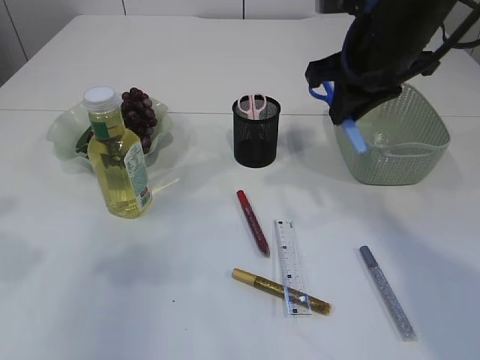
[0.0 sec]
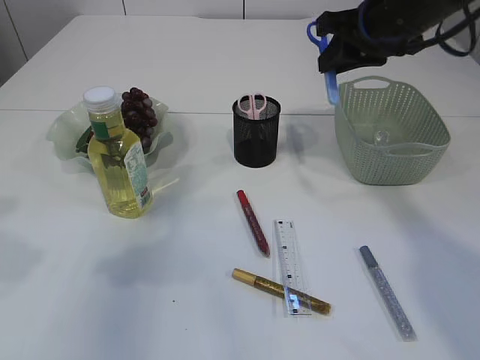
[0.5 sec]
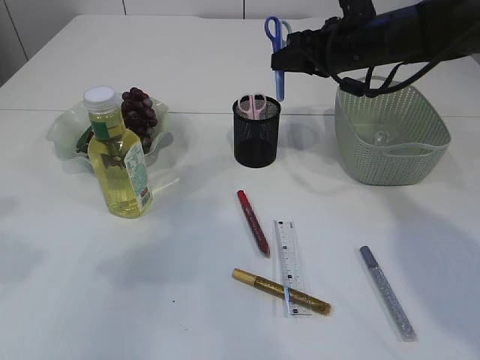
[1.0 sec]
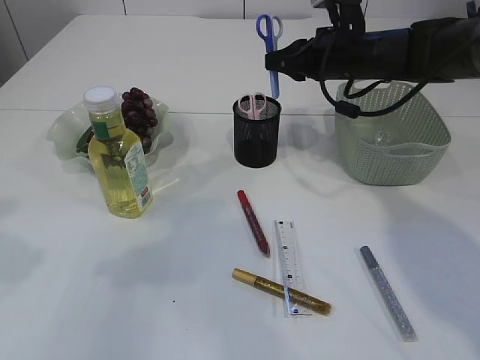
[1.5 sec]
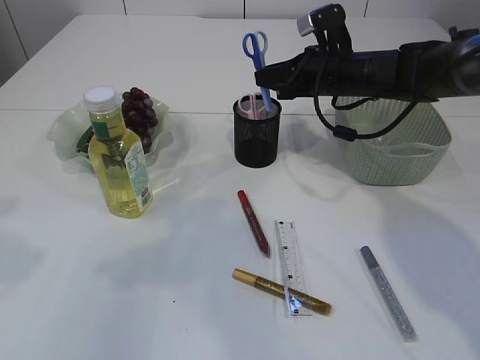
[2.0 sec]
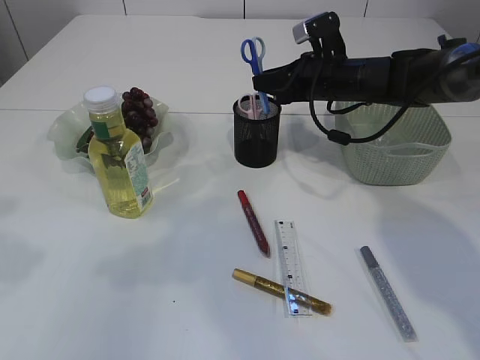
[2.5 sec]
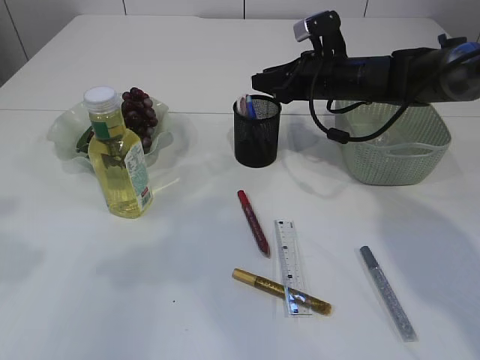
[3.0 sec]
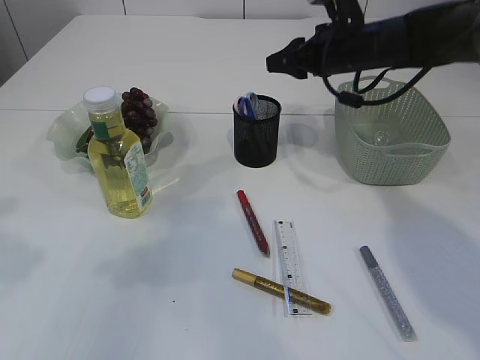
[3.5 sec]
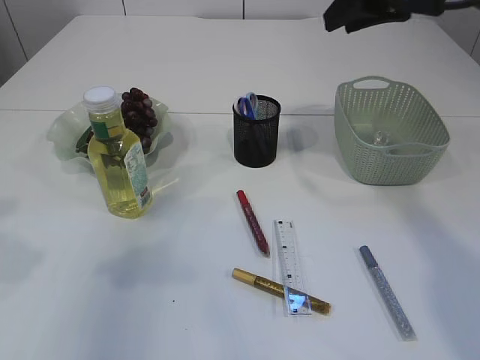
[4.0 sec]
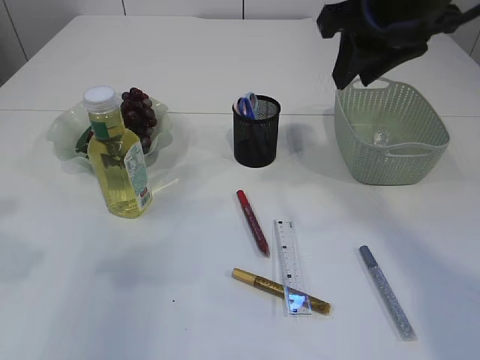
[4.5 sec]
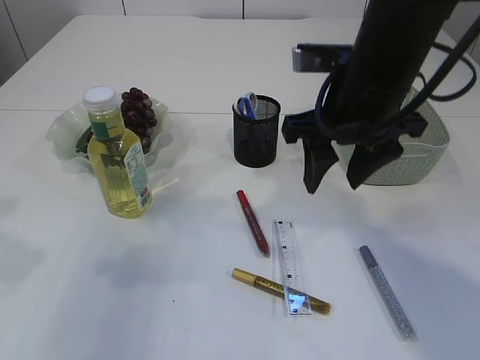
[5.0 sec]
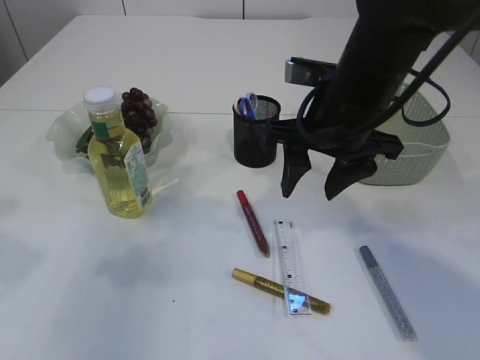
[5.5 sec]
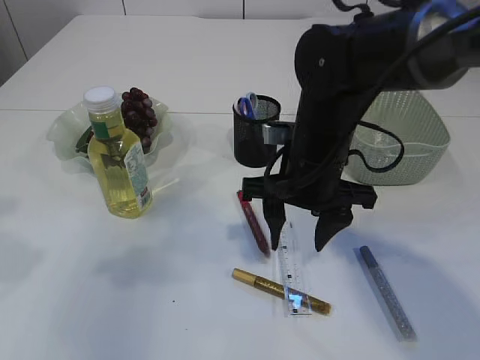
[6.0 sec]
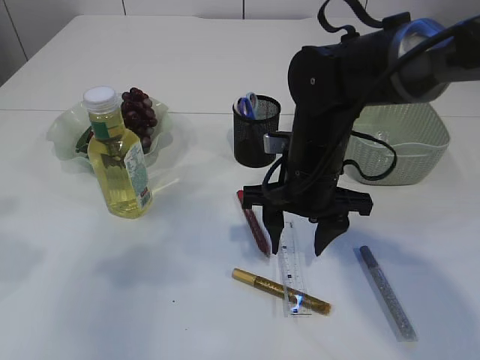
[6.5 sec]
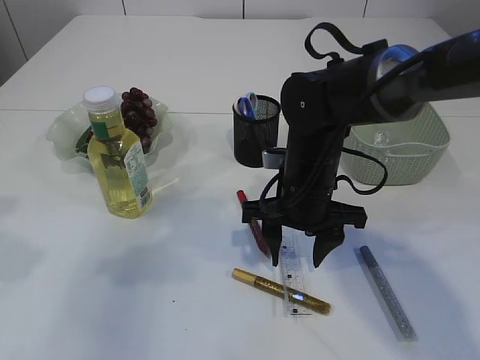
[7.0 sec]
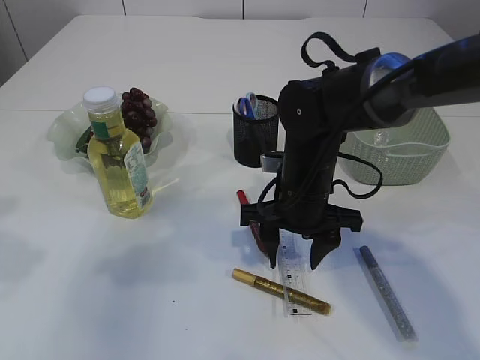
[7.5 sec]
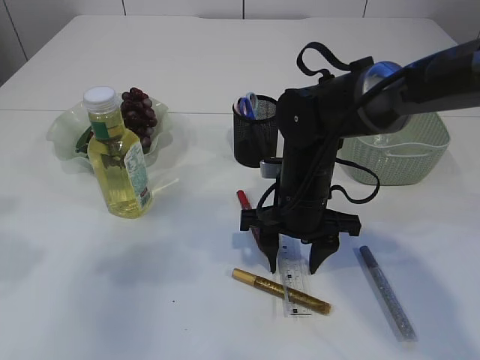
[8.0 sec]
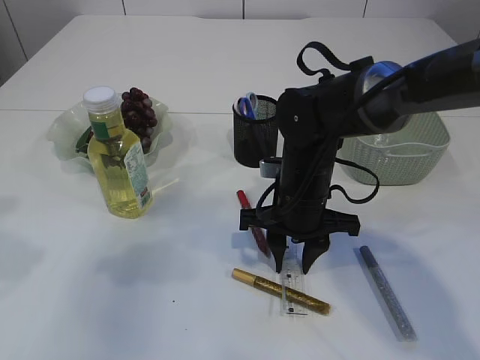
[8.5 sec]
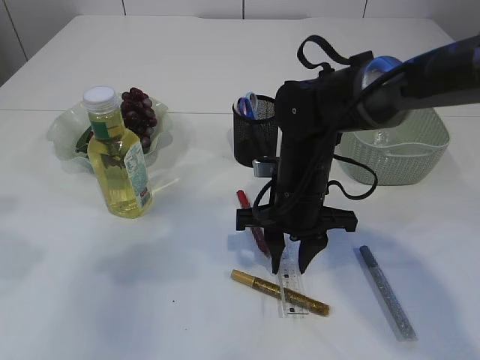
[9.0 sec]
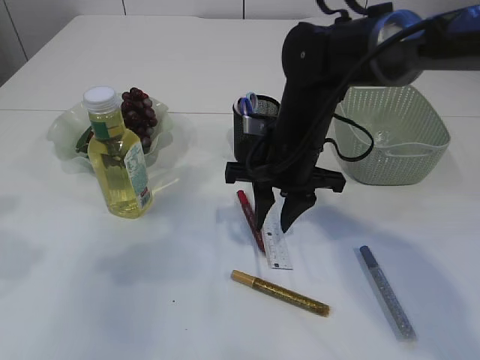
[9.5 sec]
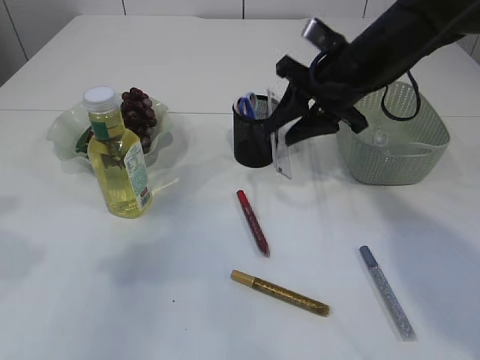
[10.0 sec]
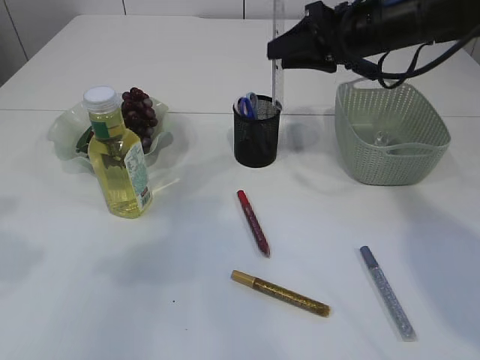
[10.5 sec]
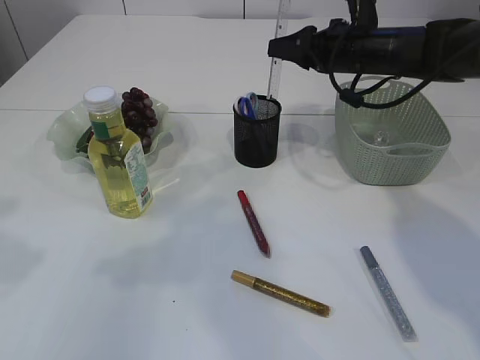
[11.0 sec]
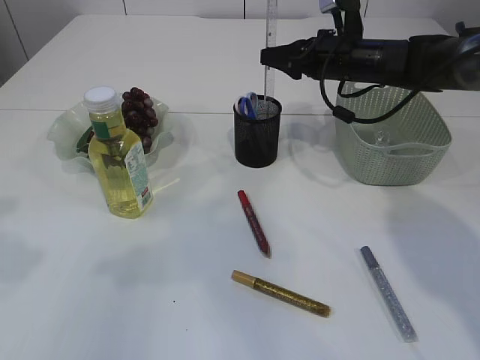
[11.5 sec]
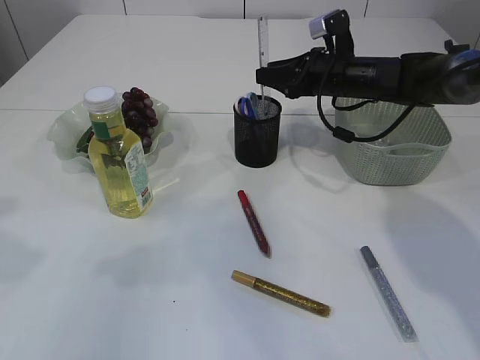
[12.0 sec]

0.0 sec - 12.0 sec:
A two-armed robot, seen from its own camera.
Step, 0.0 sec - 3.5 sec: Place the blue knife into the pen holder.
Step, 4.0 sec - 9.5 sec: pick up the ruler.
0.0 sec - 2.0 sec: The right gripper travels forward and downward by approximately 15 cm.
2.0 sec - 4.0 sec: The right gripper heads upward and backward, covering some 20 cm.
4.0 sec - 6.0 sec: The right gripper travels downward and to the left by roughly 20 cm, and opens its fingers.
6.0 sec - 8.0 sec: The right gripper shifts roughly 5 cm downward.
8.0 sec - 10.0 sec: The right gripper shifts some 15 cm upward, to the right and forward, and closes up.
10.0 sec - 12.0 sec: The right gripper heads forward and downward, covering about 10 cm.

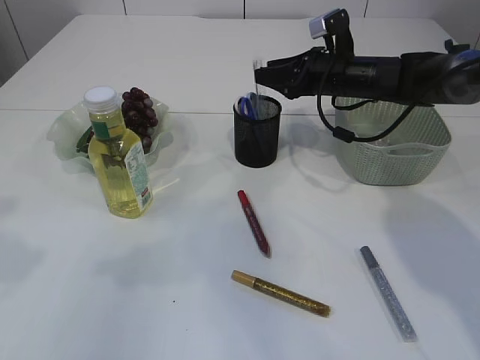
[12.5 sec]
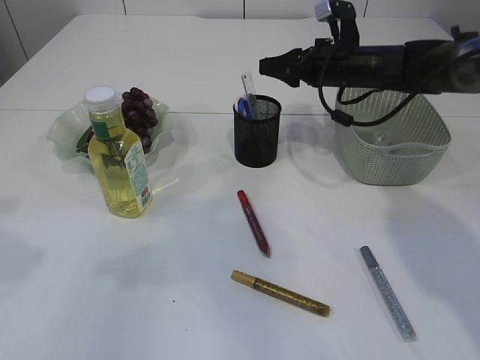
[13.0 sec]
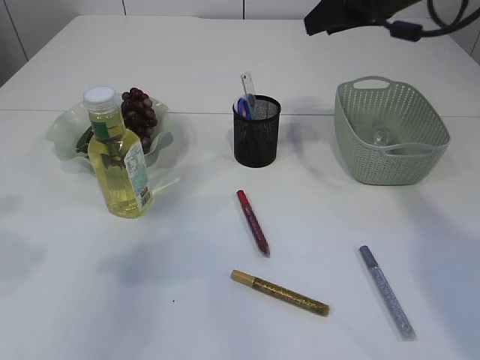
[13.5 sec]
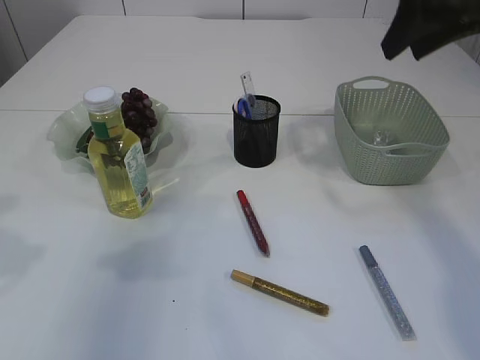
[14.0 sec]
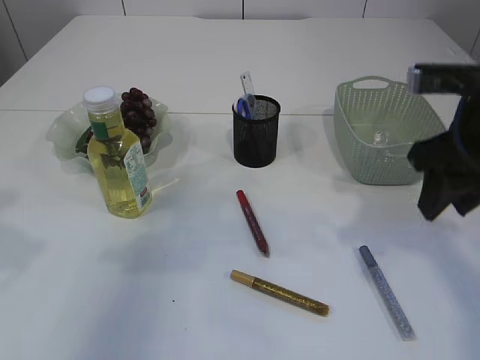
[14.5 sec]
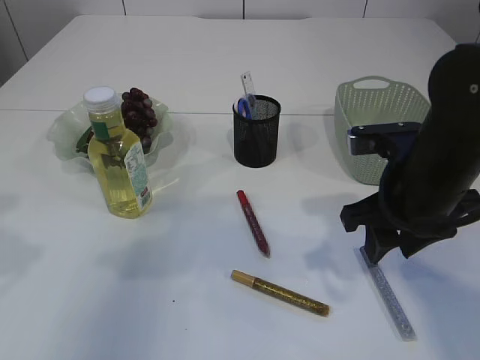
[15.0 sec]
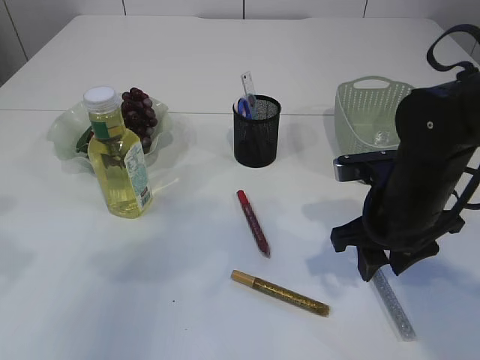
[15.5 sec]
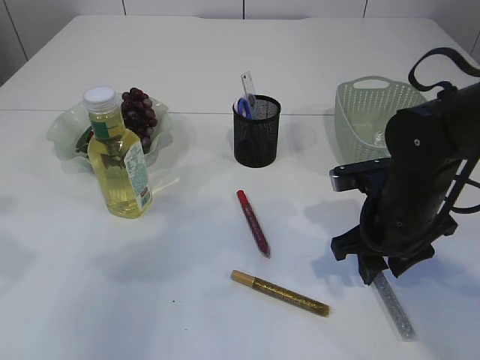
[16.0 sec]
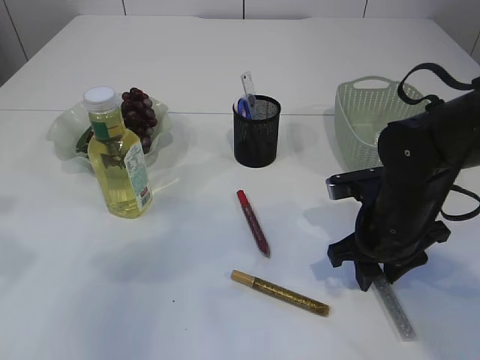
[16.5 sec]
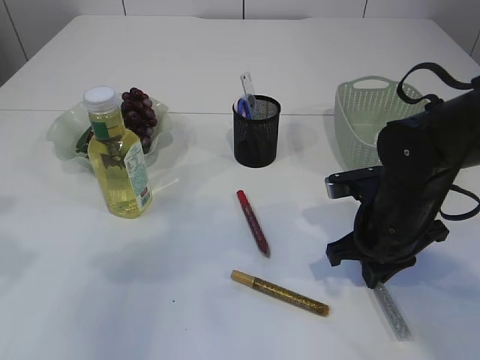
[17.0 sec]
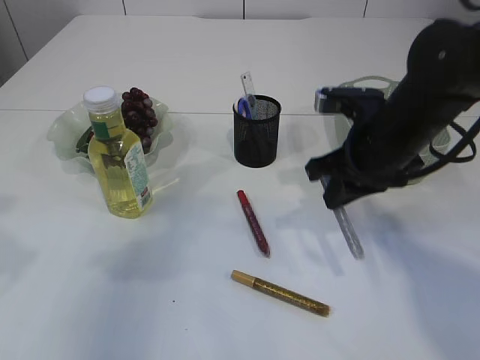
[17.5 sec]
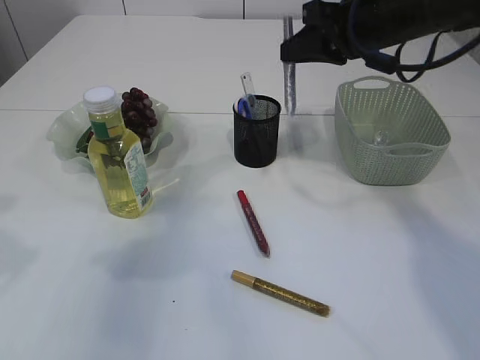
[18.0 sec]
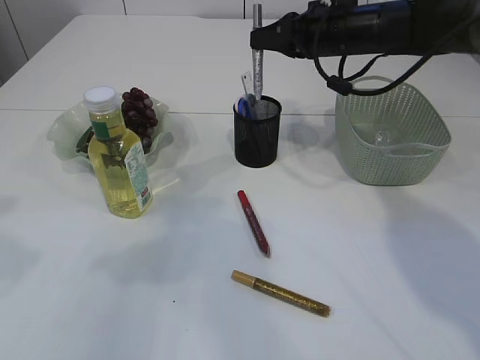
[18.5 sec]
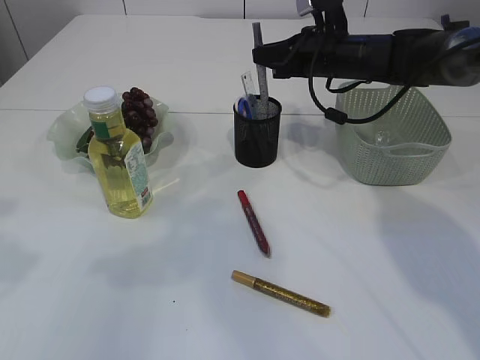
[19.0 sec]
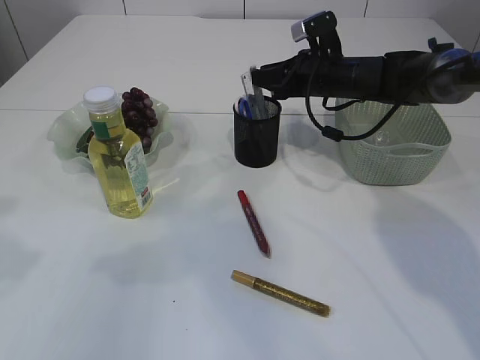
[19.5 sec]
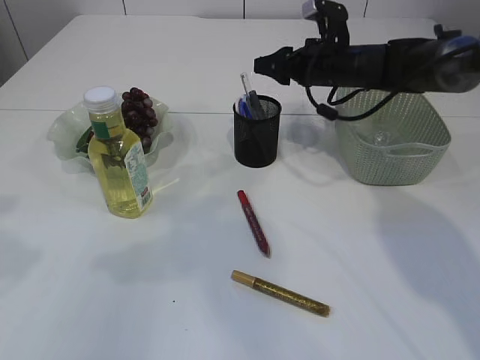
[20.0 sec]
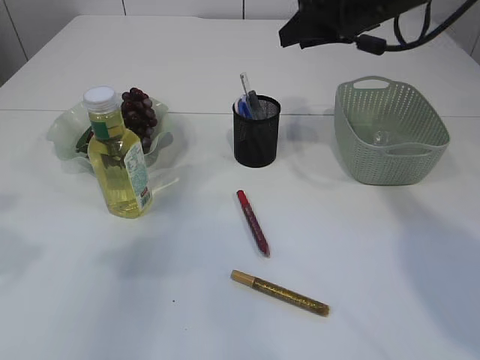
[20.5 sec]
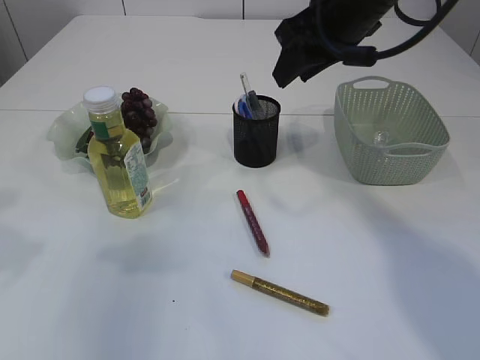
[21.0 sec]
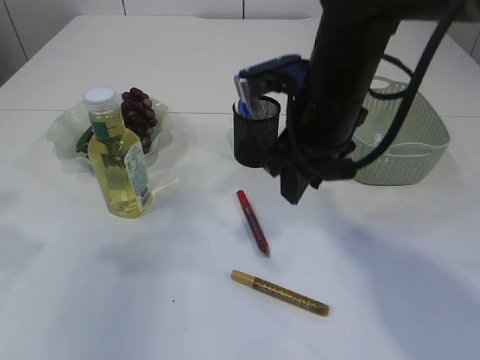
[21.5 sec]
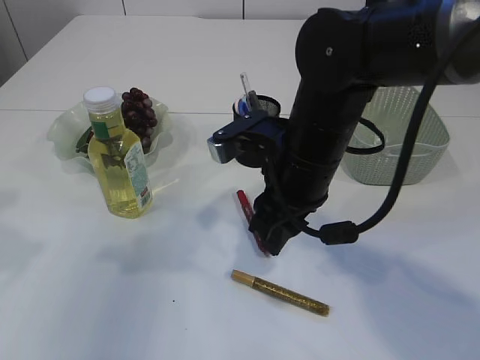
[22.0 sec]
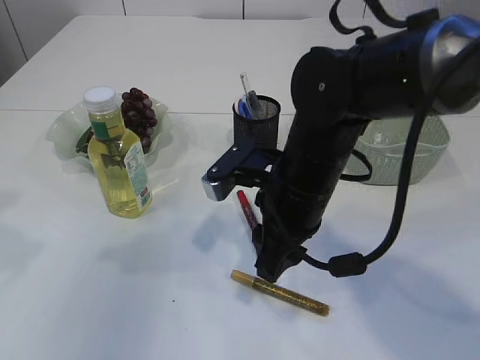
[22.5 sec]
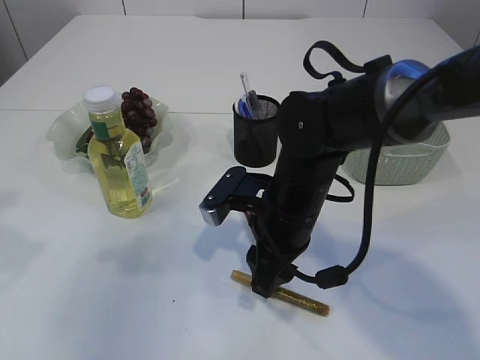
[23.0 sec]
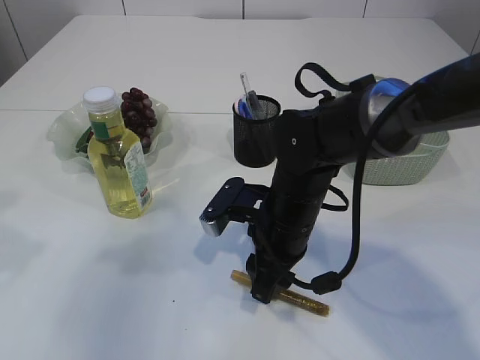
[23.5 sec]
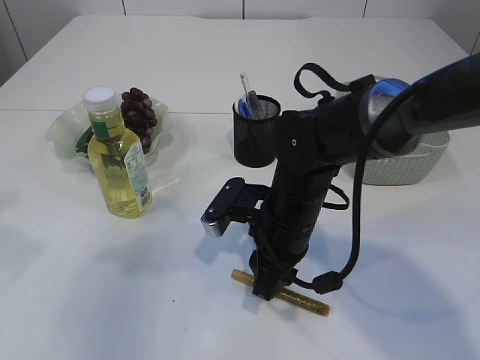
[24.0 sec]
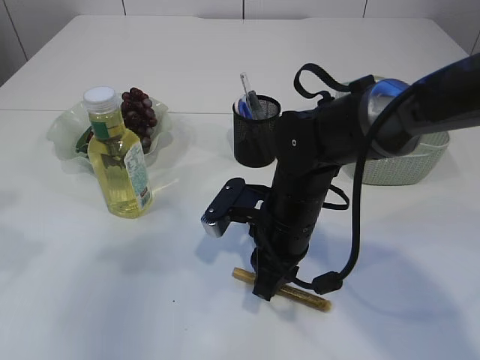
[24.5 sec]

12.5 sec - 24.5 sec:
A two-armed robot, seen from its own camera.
Step, 13.5 sec - 17.5 sec: pick up the silver glue.
Step, 18.0 sec - 20.0 sec: place the silver glue into the pen holder.
12.5 sec - 14.5 sec: The right gripper moves backward, some 20 cm.
14.5 sec - 16.5 sec: The right gripper shifts some 15 cm downward.
16.5 sec - 18.5 sec: The right gripper heads forward and upward, covering roughly 25 cm, and closes up.
18.5 sec - 20.5 sec: The right gripper opens its fingers.
20.5 sec - 22.5 sec: The right gripper heads backward, downward and to the left, covering approximately 25 cm.
22.5 sec - 24.5 sec: The right gripper shifts about 5 cm downward.

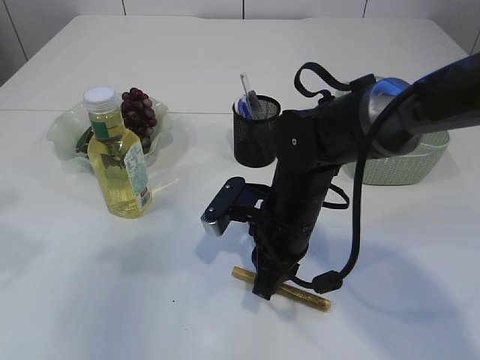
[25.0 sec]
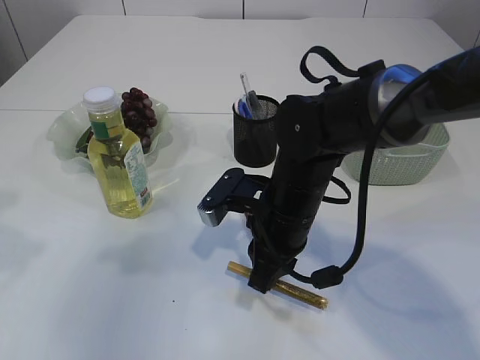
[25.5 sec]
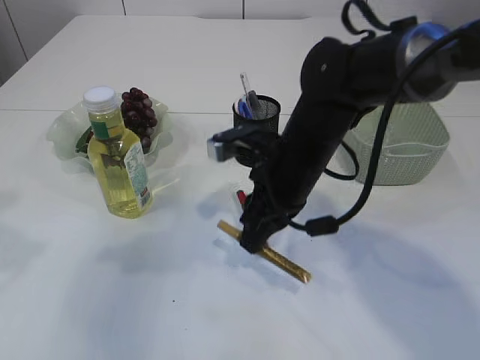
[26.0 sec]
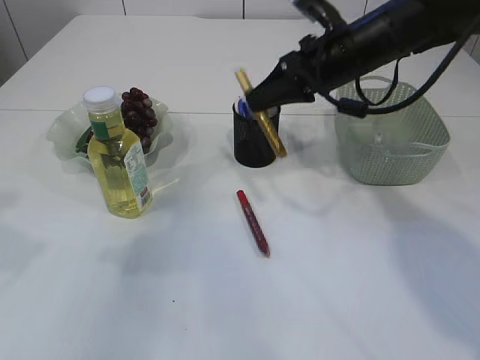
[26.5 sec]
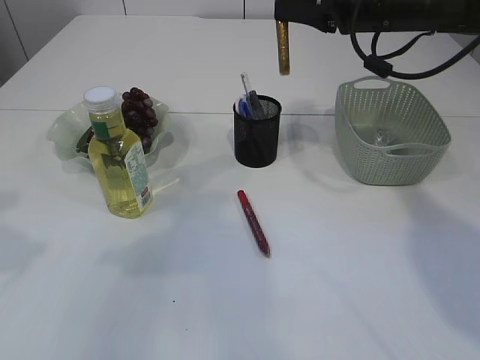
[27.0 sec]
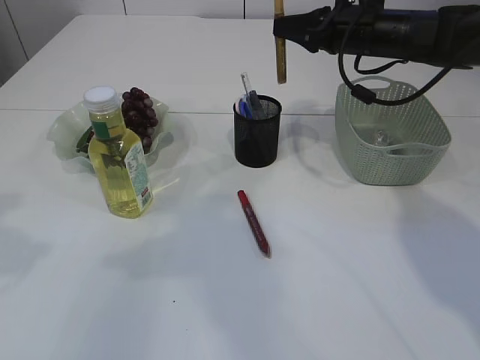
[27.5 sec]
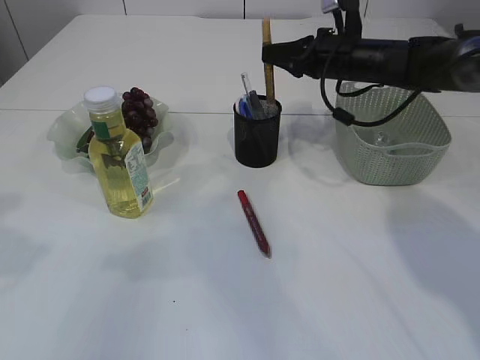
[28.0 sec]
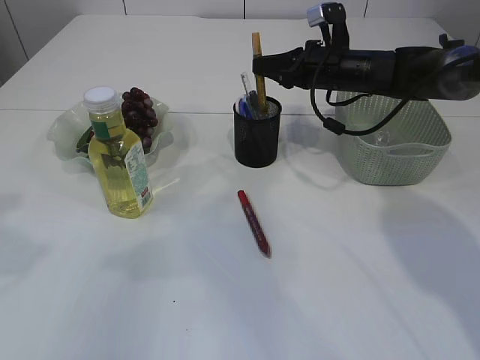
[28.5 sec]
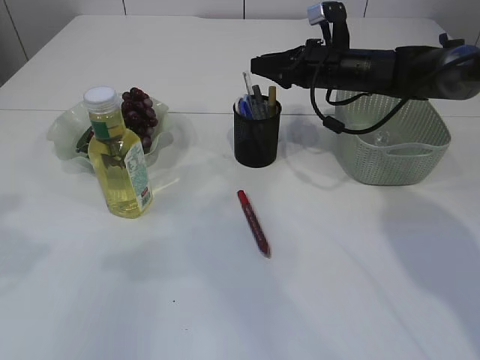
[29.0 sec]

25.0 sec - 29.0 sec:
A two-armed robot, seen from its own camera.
25.0 sec - 27.0 sec: The right gripper moves upward, forward and to the right, roughly 25 cm.
27.0 sec - 29.0 sec: The right gripper shifts approximately 10 cm downward and forward, and opens.
